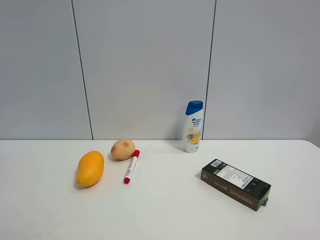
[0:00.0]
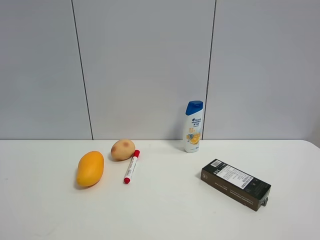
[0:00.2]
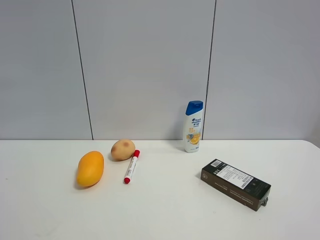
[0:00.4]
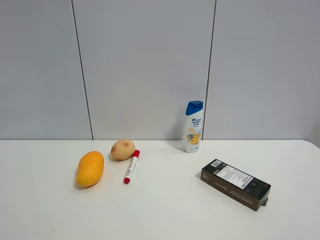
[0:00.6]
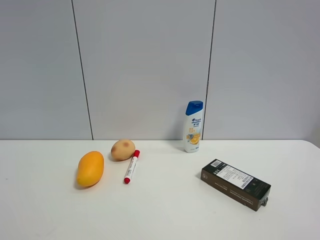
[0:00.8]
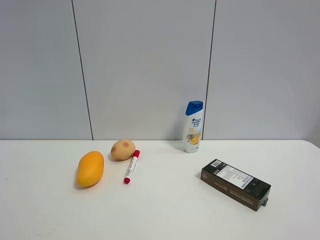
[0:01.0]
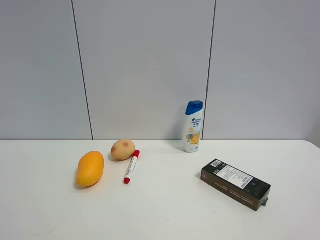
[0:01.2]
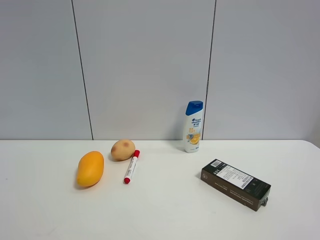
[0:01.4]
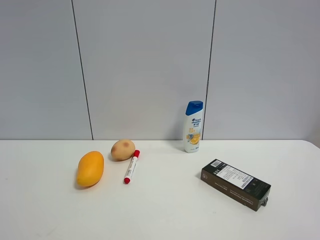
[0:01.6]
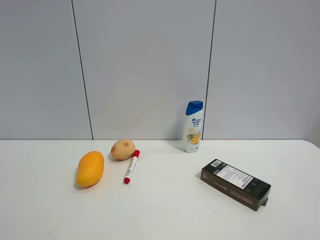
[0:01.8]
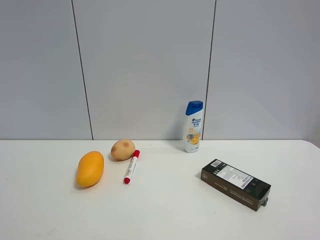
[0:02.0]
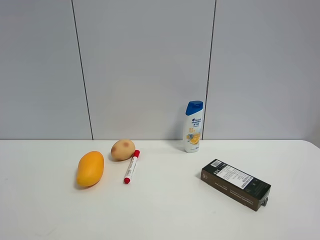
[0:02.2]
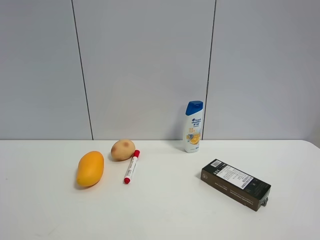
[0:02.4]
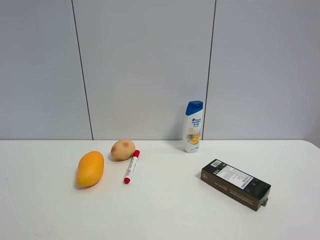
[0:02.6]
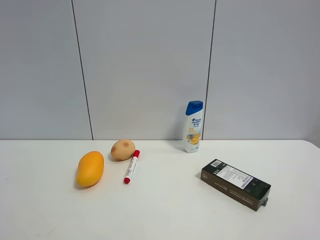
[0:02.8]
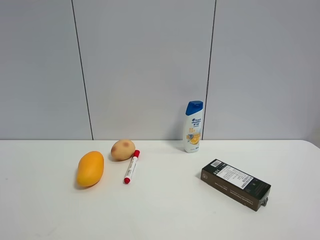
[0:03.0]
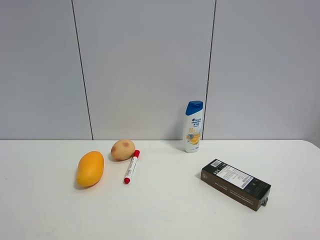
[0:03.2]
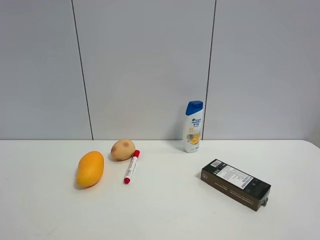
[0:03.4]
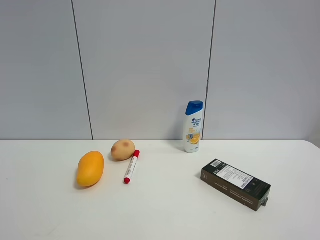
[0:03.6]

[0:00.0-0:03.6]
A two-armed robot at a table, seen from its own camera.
Task of the whole recording: the gripper move the object.
0:01.8 to 0:03.6: Both grippers stay put.

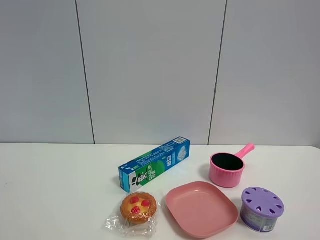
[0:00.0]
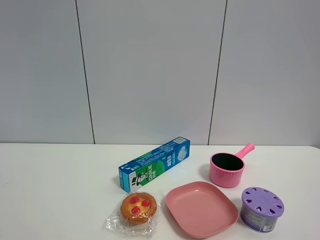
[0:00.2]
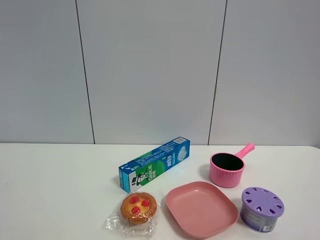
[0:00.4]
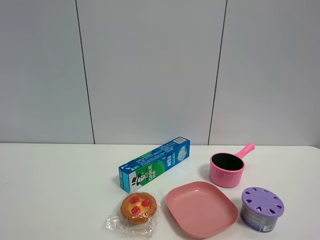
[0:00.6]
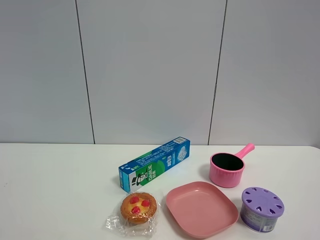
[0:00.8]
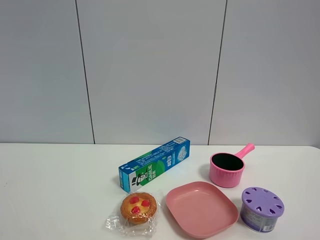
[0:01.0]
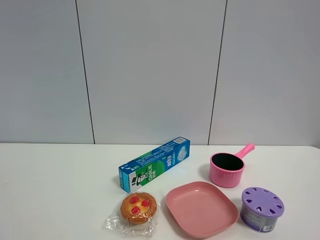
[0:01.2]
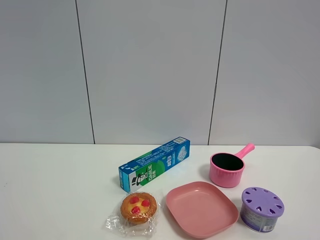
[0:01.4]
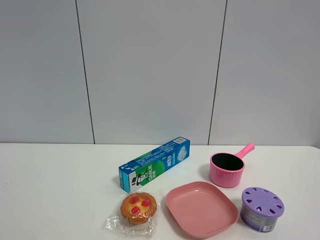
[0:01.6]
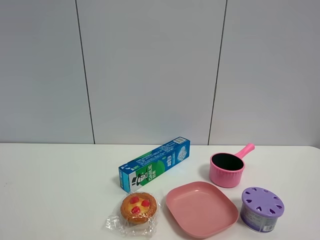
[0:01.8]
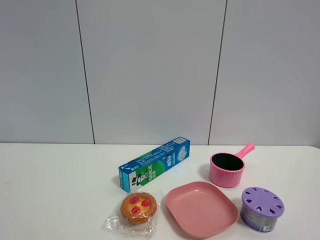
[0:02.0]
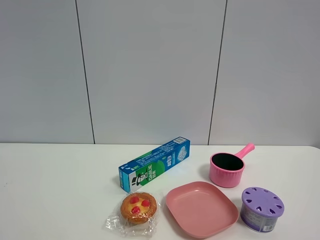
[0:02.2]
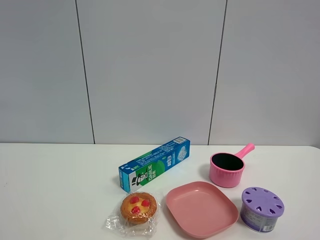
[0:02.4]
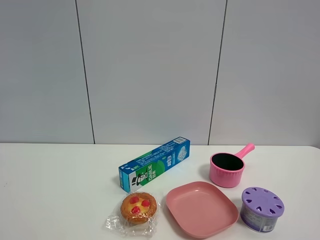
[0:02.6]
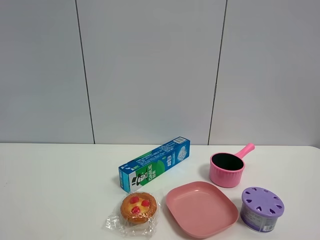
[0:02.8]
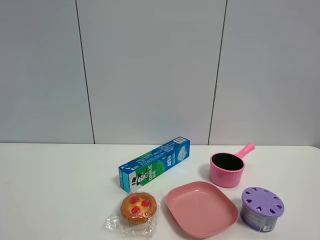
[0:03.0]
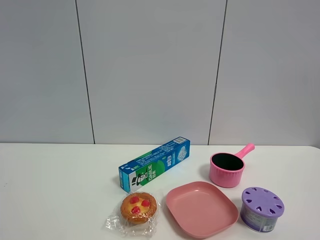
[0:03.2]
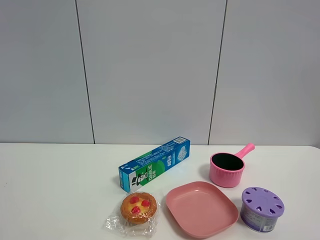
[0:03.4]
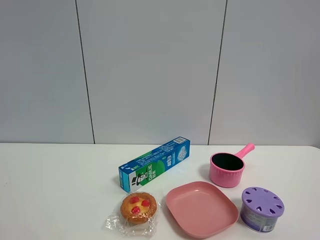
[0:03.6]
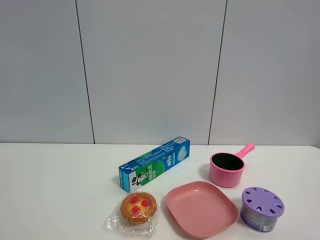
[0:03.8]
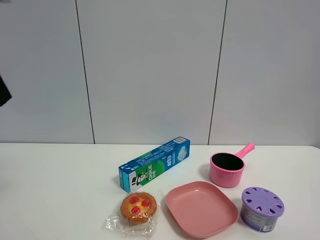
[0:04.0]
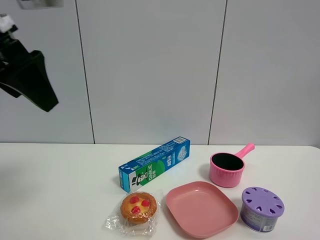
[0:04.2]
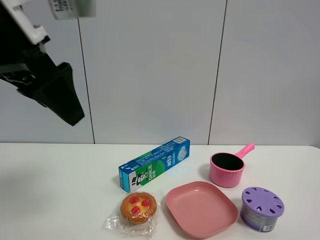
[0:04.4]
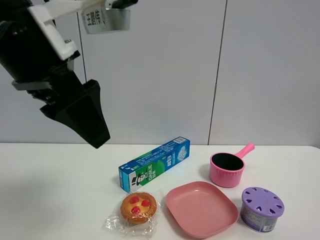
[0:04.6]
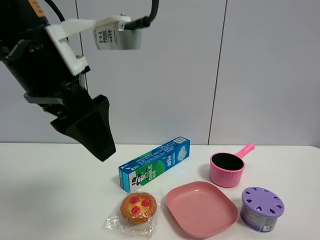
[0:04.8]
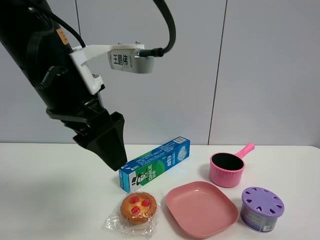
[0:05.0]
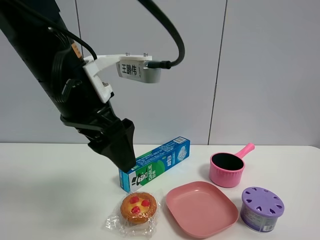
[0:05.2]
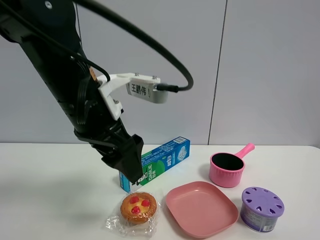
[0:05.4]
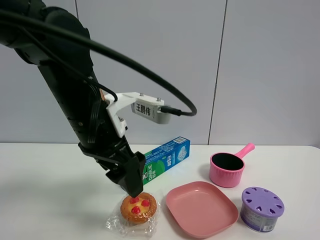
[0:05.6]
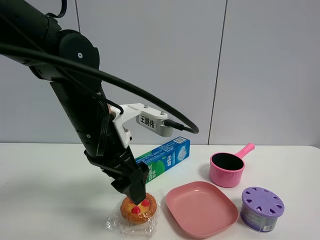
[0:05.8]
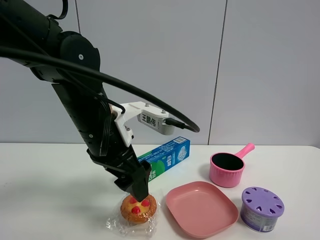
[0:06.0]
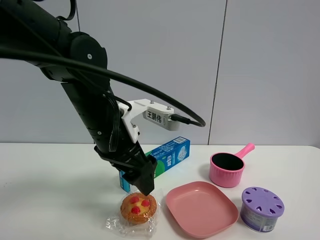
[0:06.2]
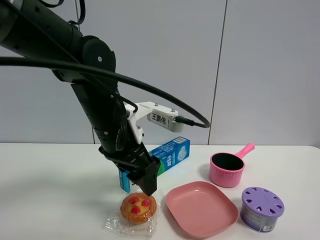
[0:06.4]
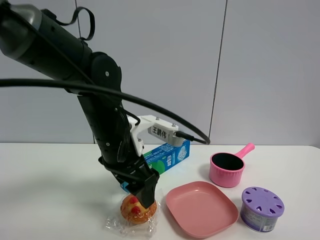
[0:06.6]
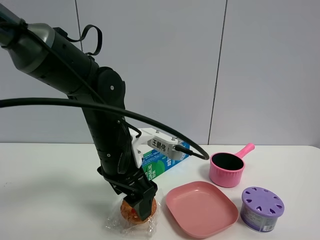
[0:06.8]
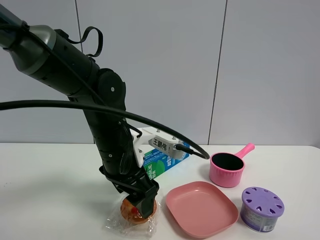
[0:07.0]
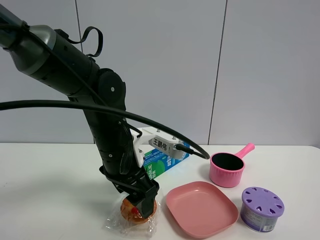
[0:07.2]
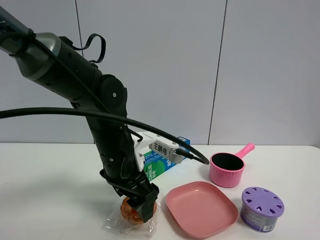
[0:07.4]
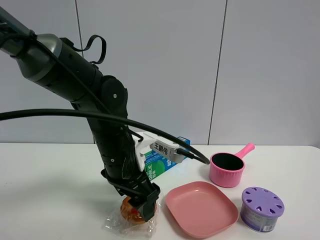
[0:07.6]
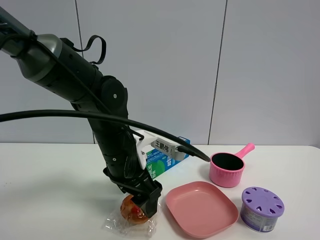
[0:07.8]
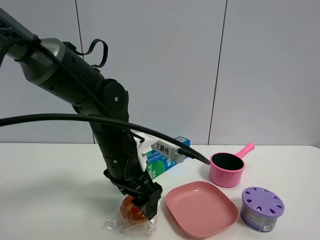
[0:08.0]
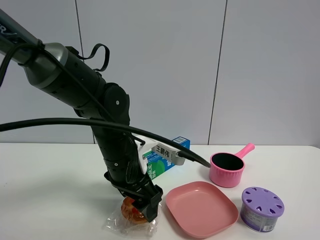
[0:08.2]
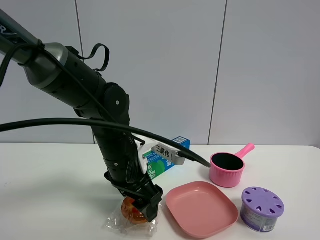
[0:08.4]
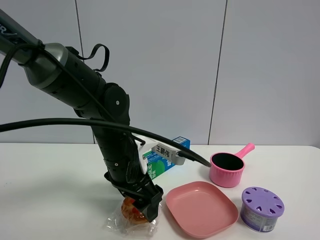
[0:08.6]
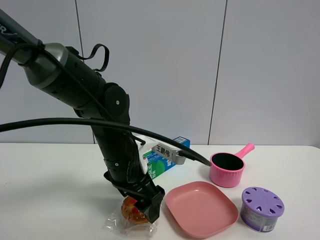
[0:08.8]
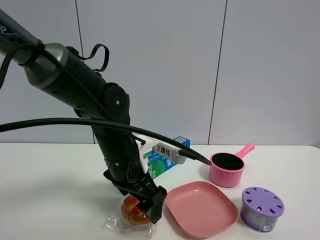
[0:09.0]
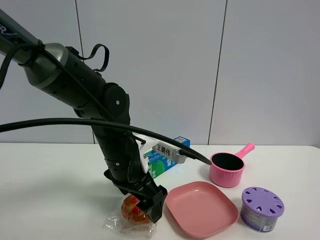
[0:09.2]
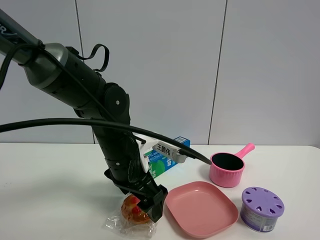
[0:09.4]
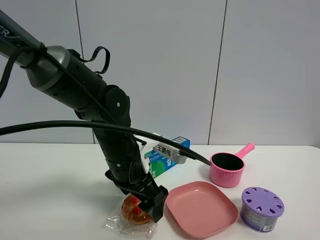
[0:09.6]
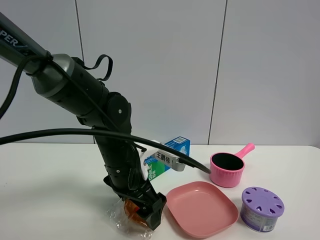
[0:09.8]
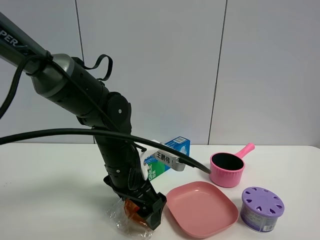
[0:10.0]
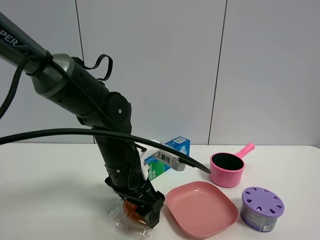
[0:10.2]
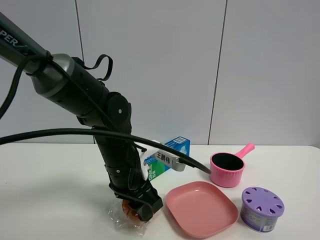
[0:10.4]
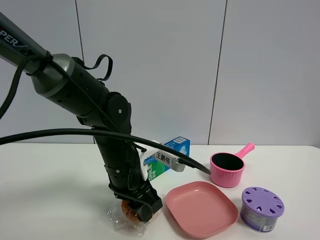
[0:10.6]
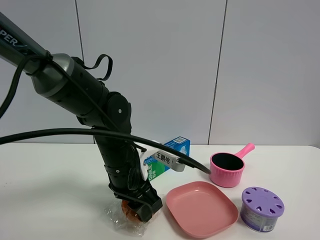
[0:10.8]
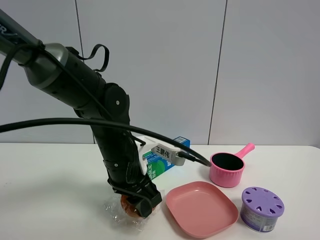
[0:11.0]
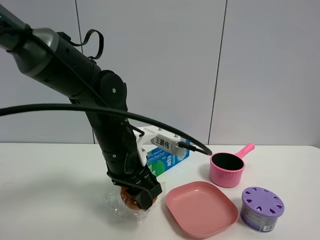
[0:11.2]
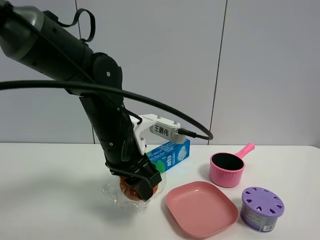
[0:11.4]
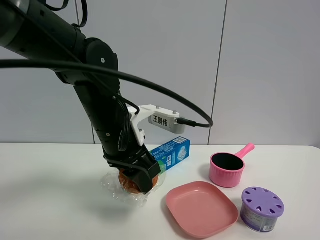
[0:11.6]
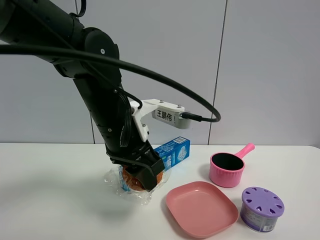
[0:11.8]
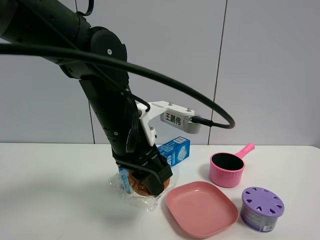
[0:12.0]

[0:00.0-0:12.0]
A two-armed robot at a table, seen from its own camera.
Task of the whole recording: the gripper move the object.
Step, 0:00.0 to 0:10.4: Grasp the egg tart with the left gripper.
0:00.0 to 0:01.6: Both grippers stay put.
0:03.0 to 0:04.4: The left gripper goes roughly 20 cm to the right and forward.
0:04.4 to 0:06.0: The left gripper is displaced downward and to the right by approximately 15 cm.
0:06.0 to 0:07.6: The left gripper is displaced downward by approximately 5 cm.
0:07.6 to 0:09.0: Both grippers stay about where they are.
0:09.0 to 0:10.4: The left gripper closes its fingers.
0:10.4 to 0:12.0: The left gripper moves upward, approximately 10 cm.

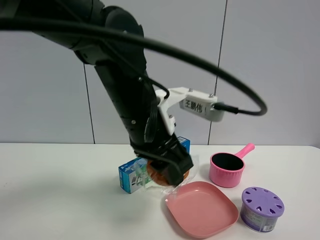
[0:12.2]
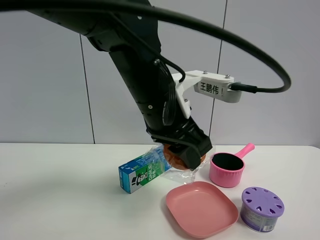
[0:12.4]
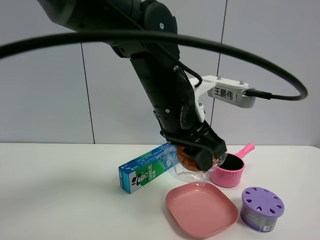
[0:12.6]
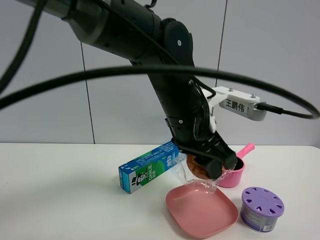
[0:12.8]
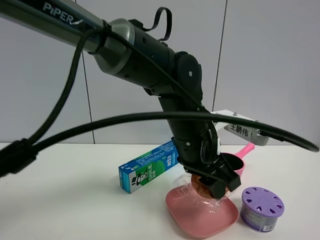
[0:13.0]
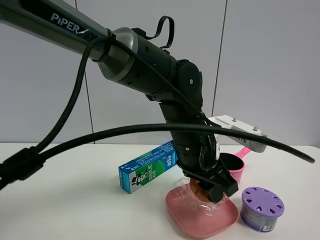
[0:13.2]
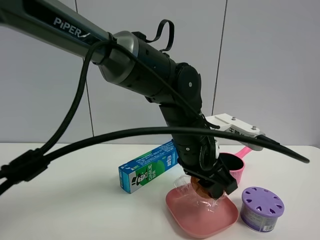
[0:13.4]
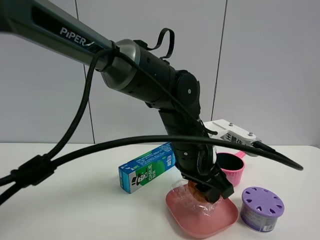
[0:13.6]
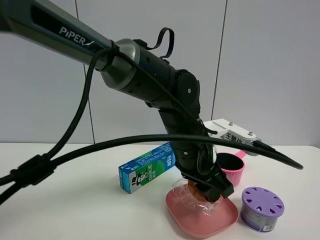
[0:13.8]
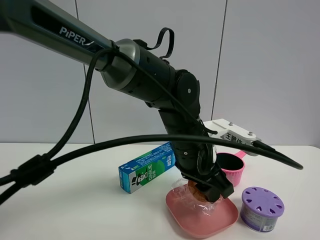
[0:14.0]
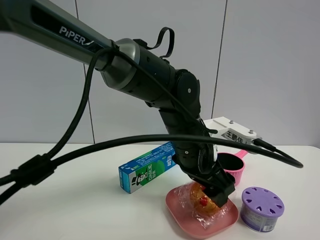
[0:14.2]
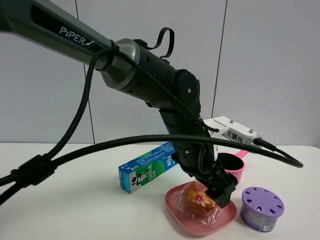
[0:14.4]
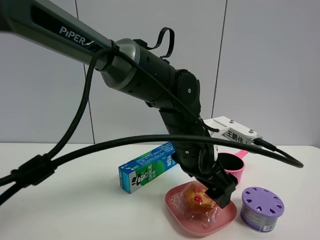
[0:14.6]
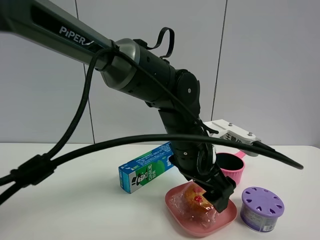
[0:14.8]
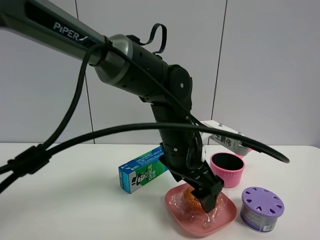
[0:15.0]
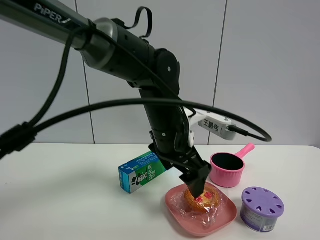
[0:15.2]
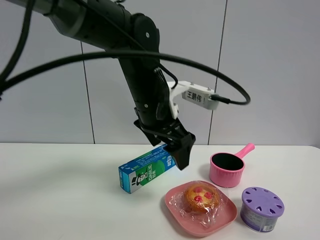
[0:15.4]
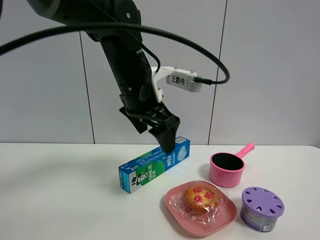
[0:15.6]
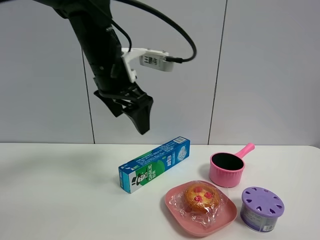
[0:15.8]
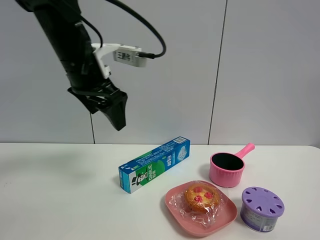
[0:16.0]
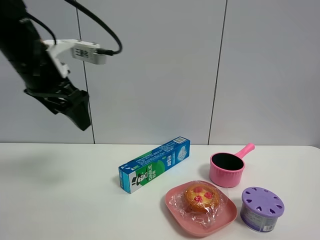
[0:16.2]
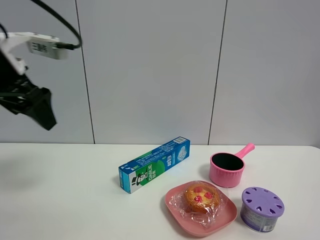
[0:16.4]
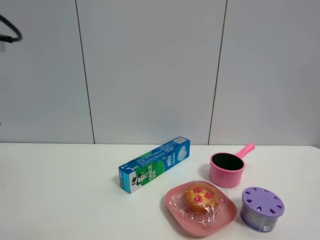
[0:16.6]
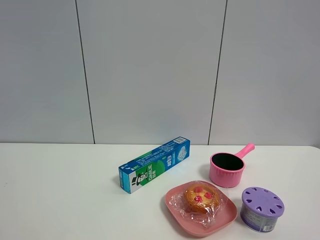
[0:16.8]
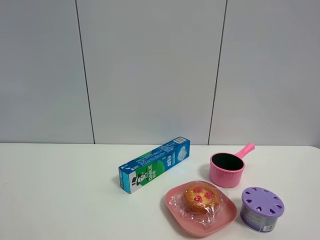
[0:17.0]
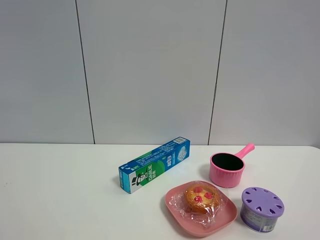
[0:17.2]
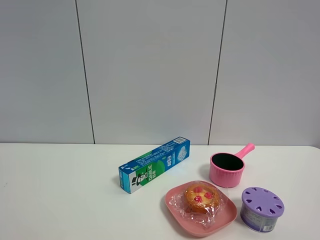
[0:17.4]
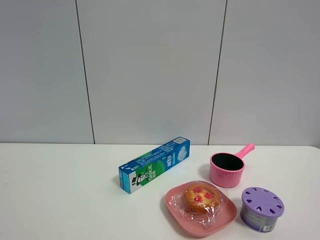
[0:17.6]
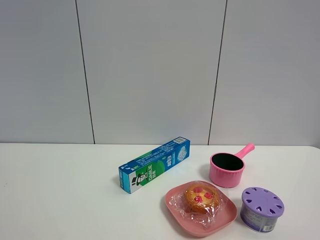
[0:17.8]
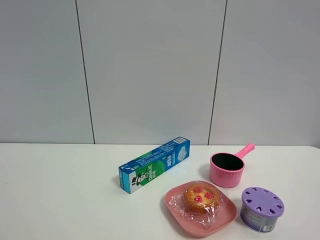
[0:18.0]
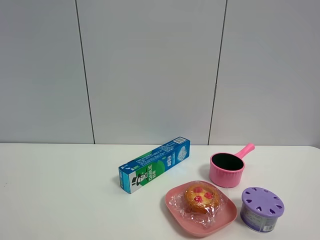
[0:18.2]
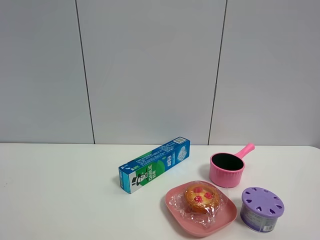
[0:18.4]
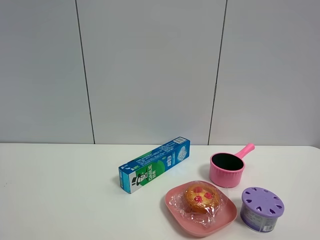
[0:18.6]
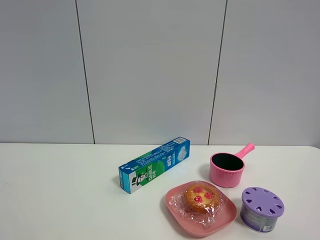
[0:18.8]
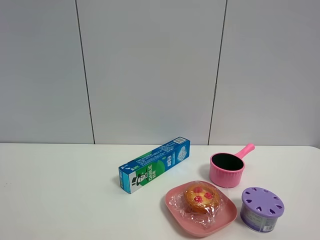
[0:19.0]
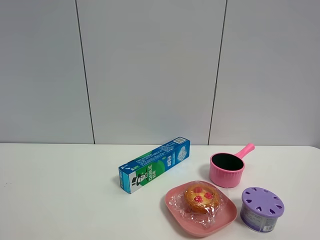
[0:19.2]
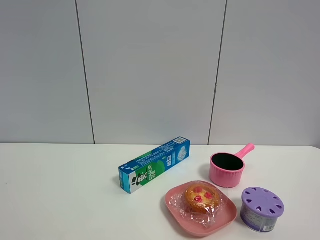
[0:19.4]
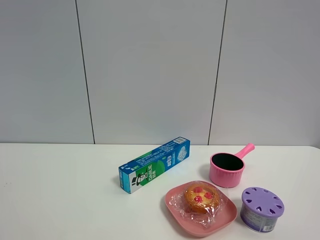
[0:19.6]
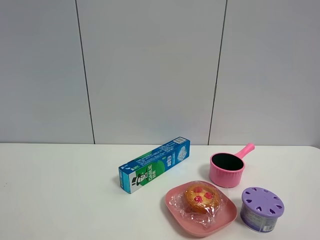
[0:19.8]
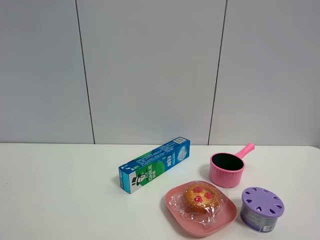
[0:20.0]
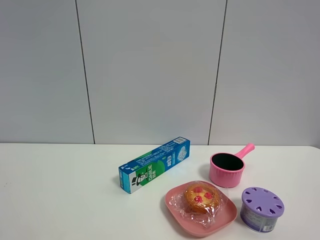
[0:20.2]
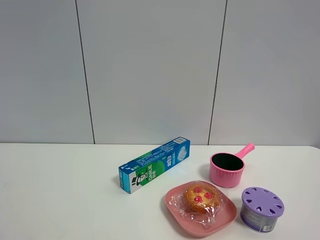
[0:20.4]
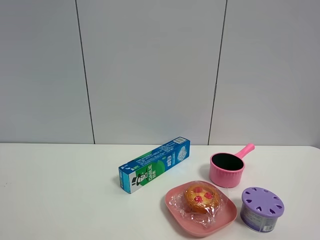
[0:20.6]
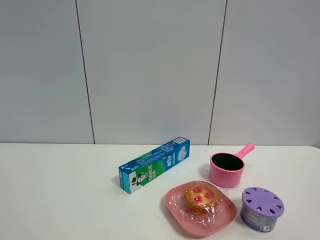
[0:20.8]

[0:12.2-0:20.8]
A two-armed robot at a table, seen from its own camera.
Task of the whole recording: the gripper move the object.
Step, 0:12.2 to 0:14.4: Place the egg tart into the pink plate with the left gripper.
0:12.2 to 0:13.6: The left gripper goes some 10 cm downward and to the right.
0:13.6 to 0:15.0: The left gripper opens.
0:15.0 to 0:16.6: The left gripper goes roughly 40 cm to the left and upward.
0:19.4 to 0:20.8: Both grippers stay put.
